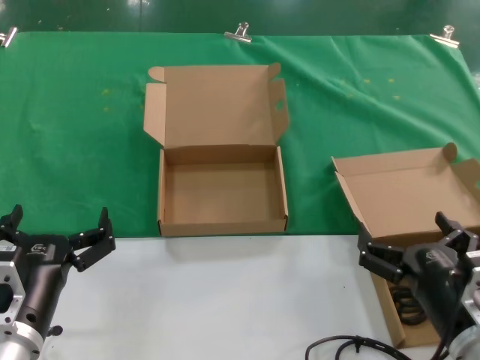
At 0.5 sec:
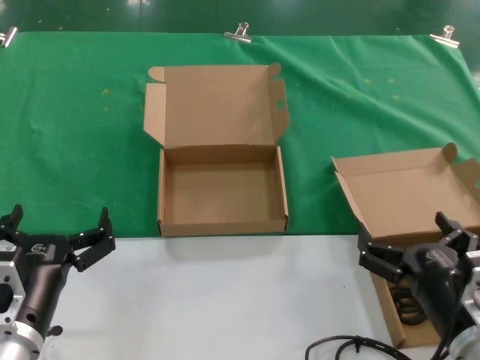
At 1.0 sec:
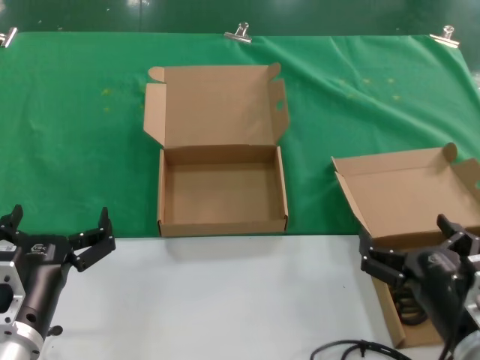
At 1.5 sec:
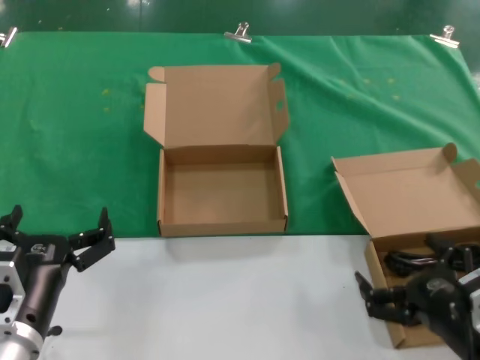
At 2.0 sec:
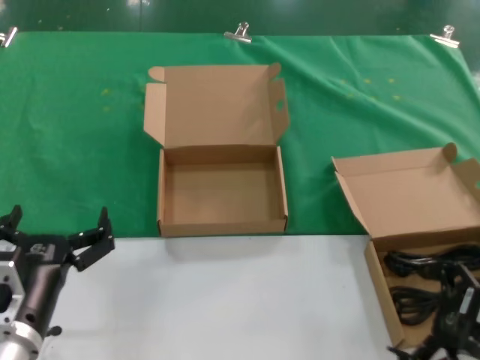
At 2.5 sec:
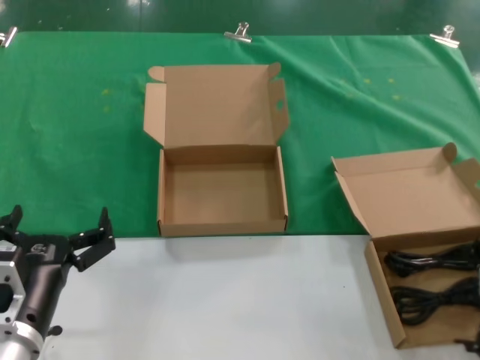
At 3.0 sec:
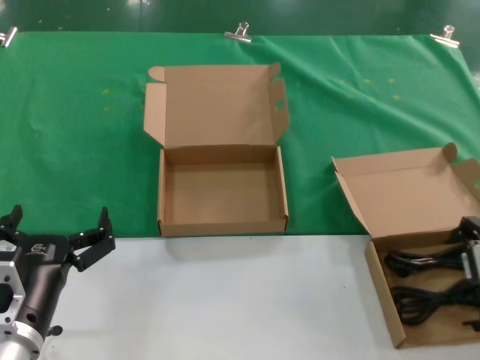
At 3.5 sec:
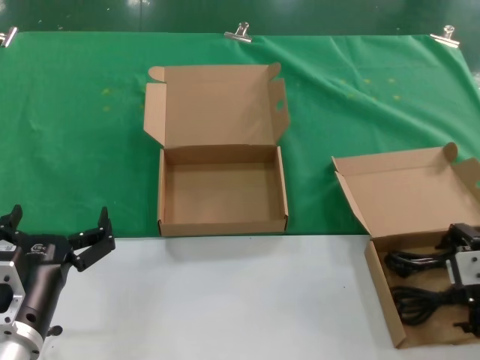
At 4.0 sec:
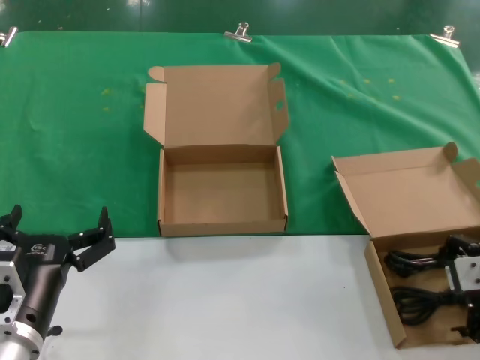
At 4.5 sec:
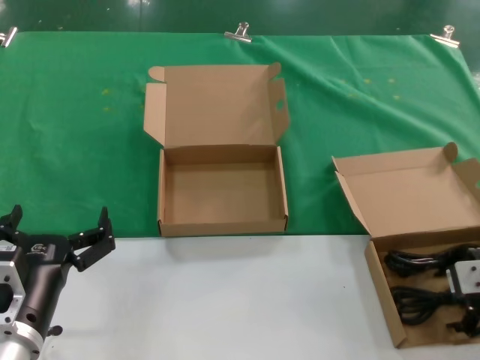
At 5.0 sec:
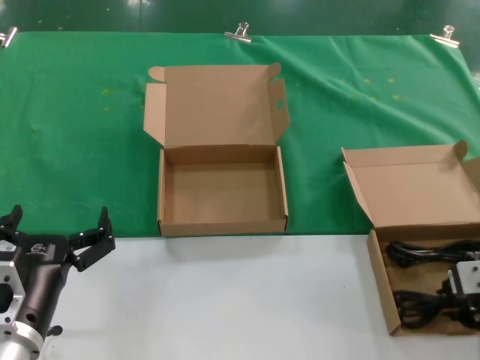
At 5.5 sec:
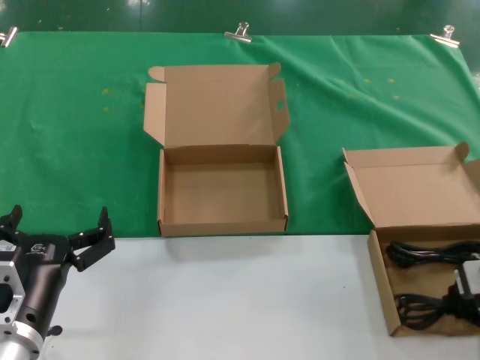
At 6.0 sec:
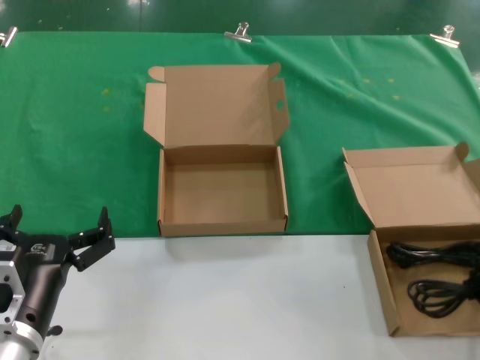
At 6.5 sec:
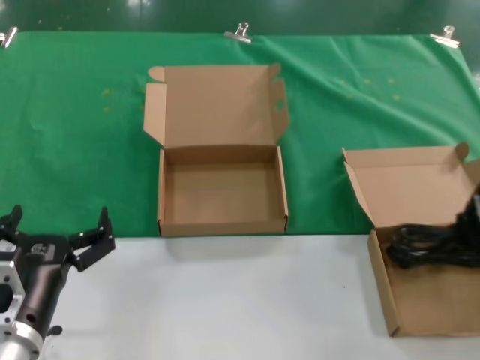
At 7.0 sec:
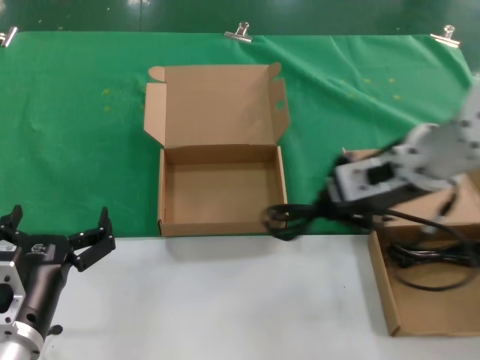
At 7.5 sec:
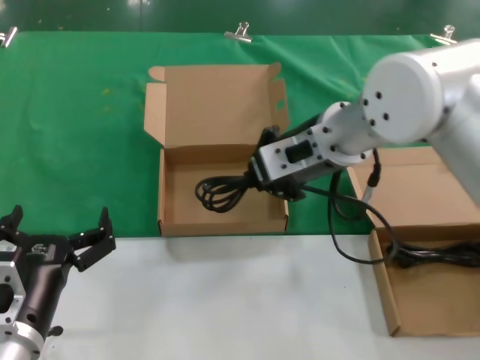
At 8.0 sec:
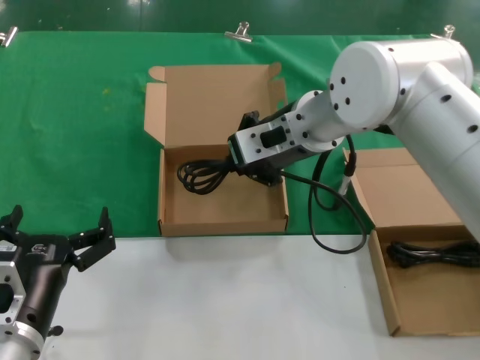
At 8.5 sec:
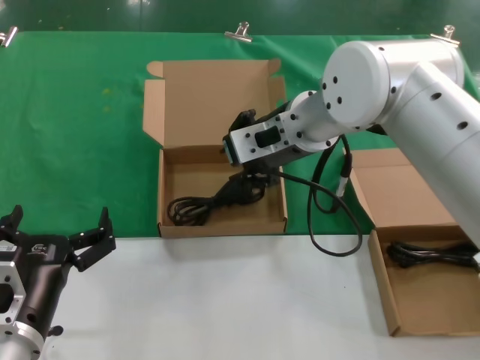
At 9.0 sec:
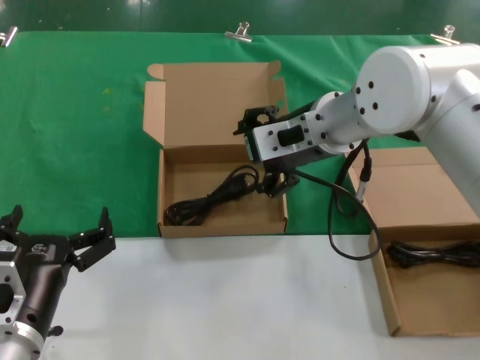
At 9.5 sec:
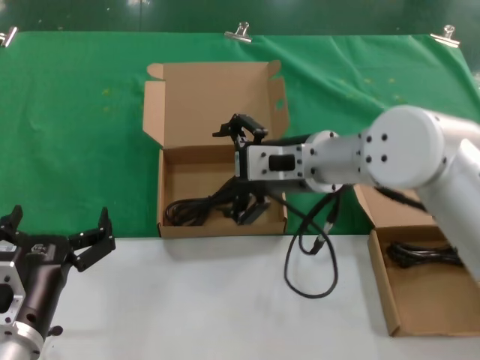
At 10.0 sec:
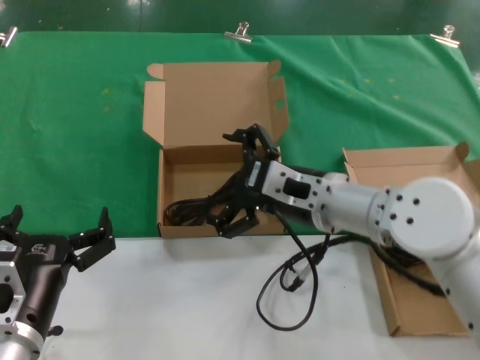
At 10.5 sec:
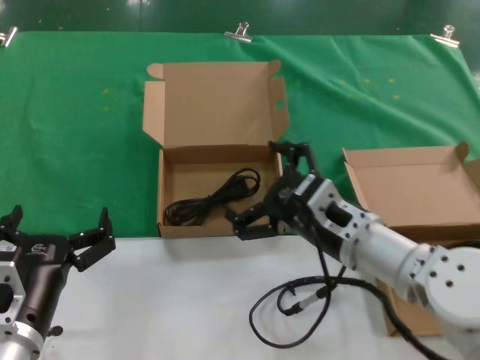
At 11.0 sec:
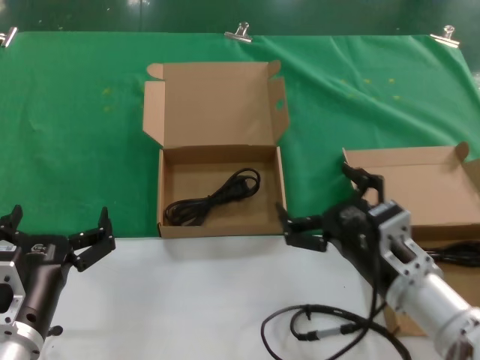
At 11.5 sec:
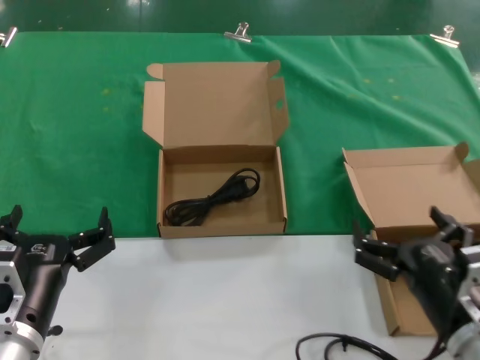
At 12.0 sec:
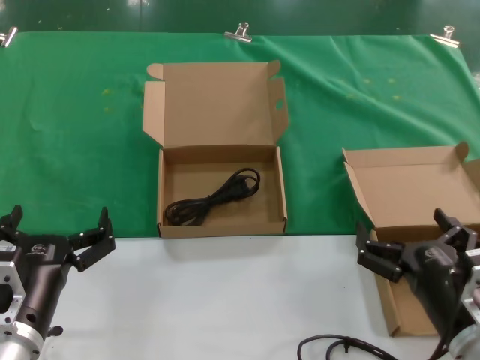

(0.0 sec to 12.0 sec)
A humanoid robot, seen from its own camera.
Task of the whole recording: take the parts from the box containing them and put them into an empty box.
Step, 0.0 sec - 4.5 sec: Grasp the data cable.
Step, 5.5 sec - 8.0 sec: Place the data cable in the another box.
0.0 sec - 2.0 sec: The right hand goes approximately 10 cm to the right and upward.
2.0 sec - 4.0 sec: The right hand moves forward and upward, roughly 10 cm.
4.0 sec - 6.0 sec: The right hand moves upward, roughly 5 cm.
6.0 sec - 8.0 sec: The right hand is displaced to the left and forward by about 30 cm.
8.0 sec - 10.0 sec: The right hand heads downward and backward, covering some 15 cm.
10.0 sec - 12.0 sec: The right hand travels backward, downward and to the right by about 25 cm.

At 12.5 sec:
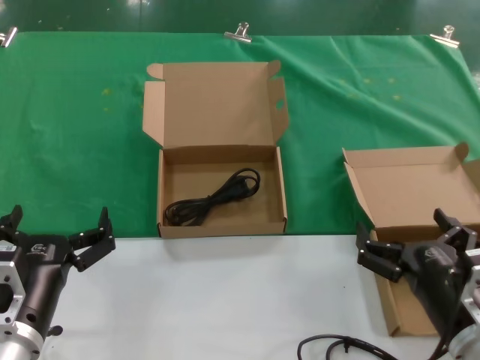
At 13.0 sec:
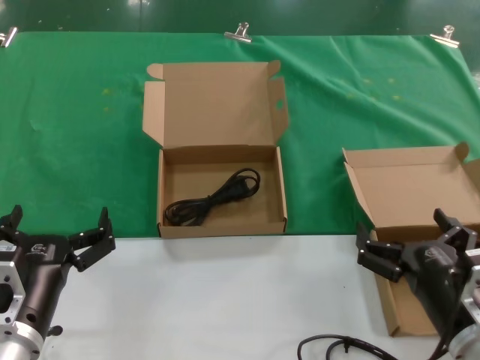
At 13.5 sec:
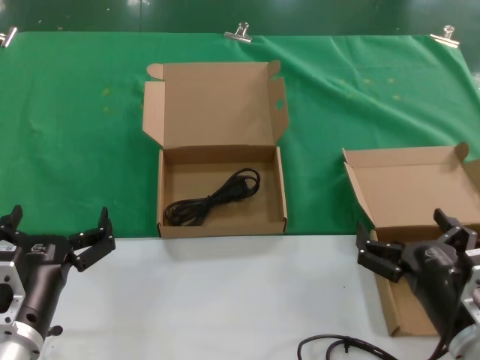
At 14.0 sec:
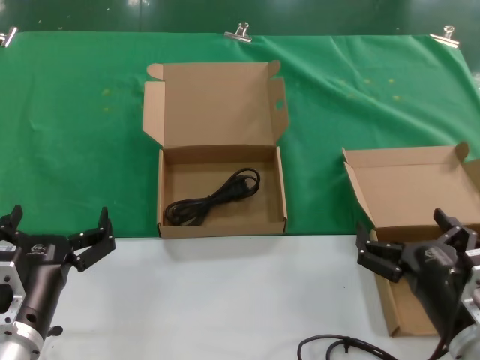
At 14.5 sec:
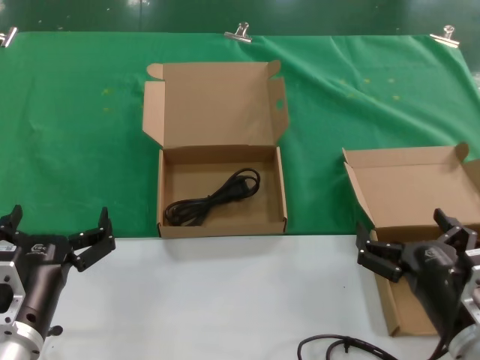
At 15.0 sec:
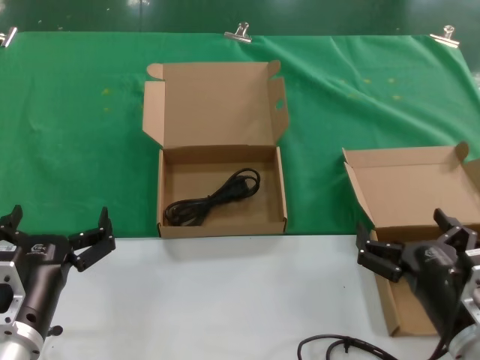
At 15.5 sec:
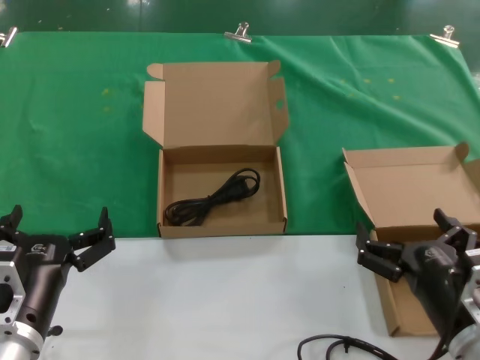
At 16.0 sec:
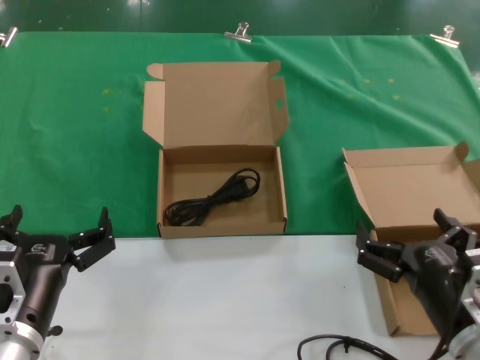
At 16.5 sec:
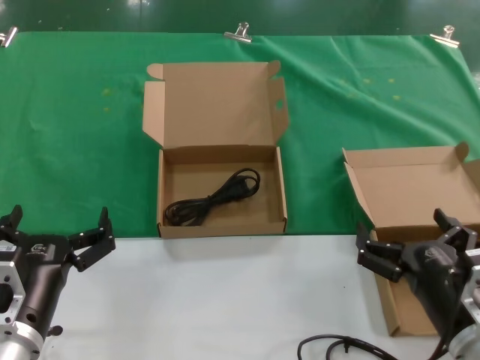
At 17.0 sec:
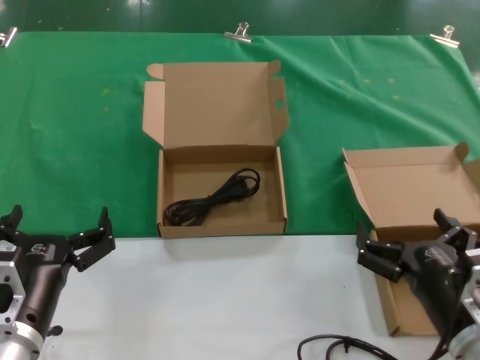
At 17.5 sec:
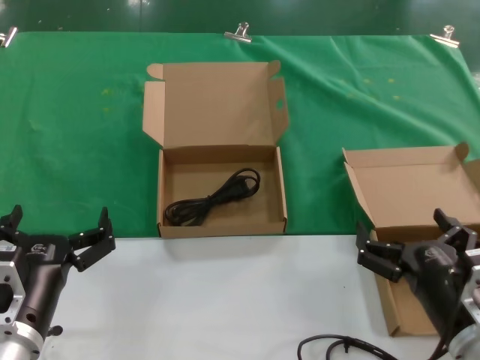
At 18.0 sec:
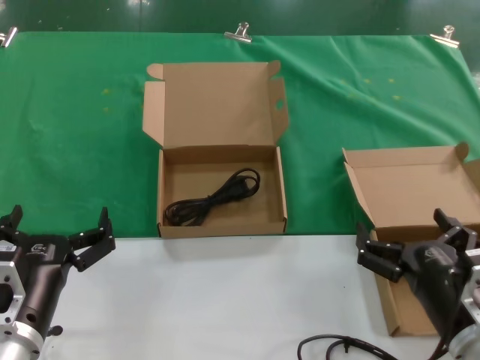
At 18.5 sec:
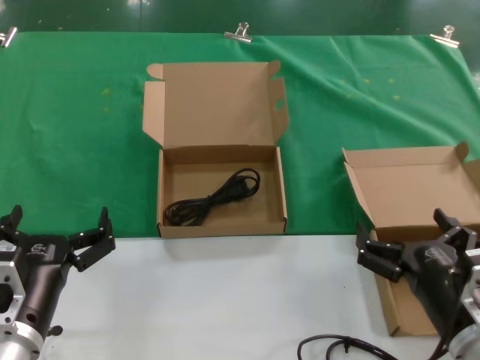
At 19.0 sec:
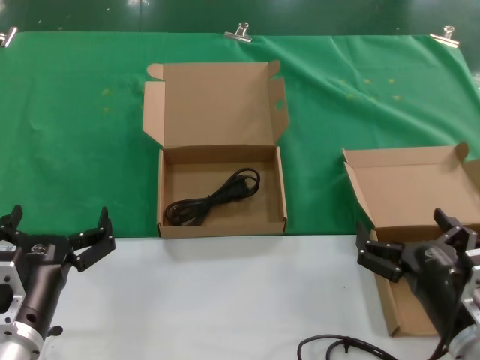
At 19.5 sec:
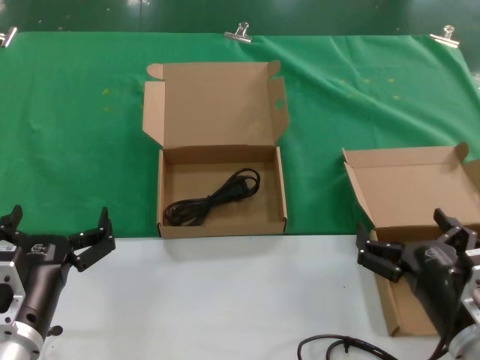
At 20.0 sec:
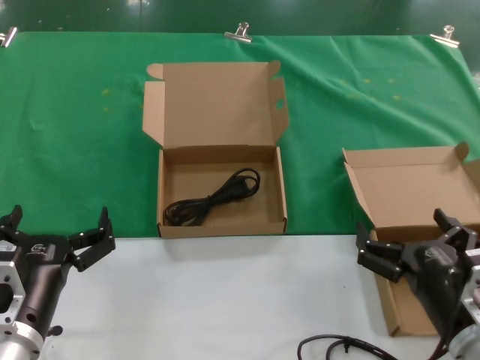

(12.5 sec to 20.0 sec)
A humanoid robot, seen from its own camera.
Task of the whole recording: take the parts from the box containing them and put them into an empty box.
12.5 sec - 20.0 sec: Both hands stay put.
